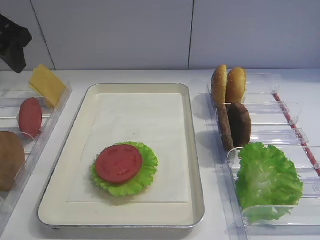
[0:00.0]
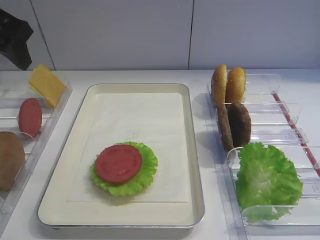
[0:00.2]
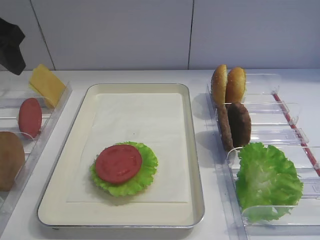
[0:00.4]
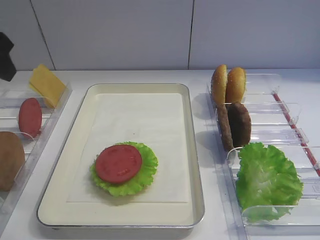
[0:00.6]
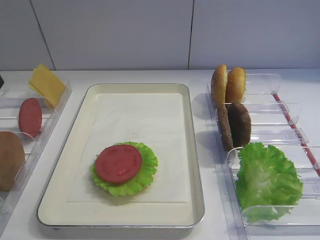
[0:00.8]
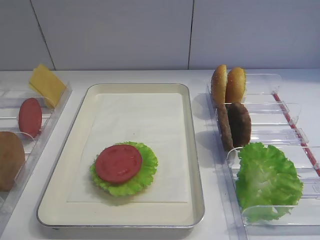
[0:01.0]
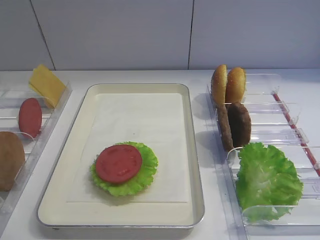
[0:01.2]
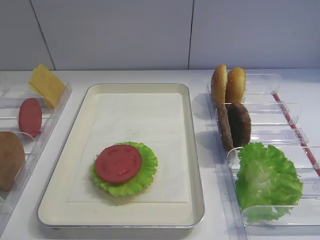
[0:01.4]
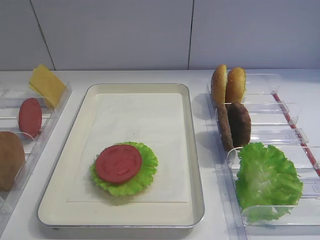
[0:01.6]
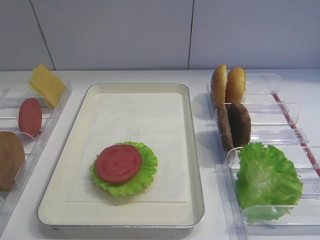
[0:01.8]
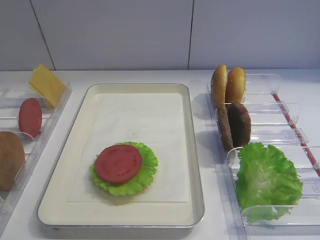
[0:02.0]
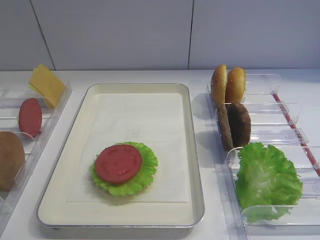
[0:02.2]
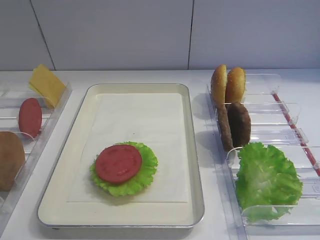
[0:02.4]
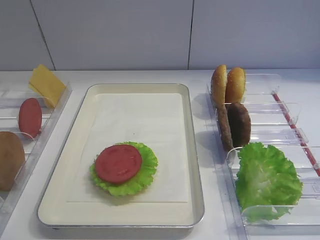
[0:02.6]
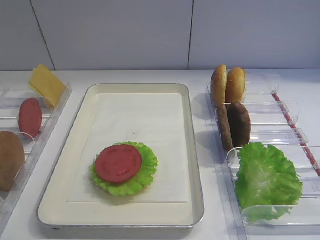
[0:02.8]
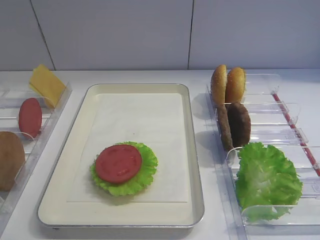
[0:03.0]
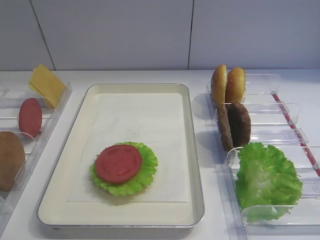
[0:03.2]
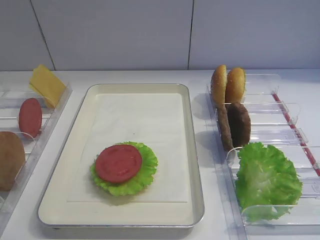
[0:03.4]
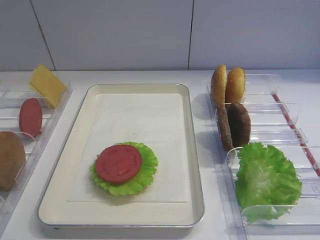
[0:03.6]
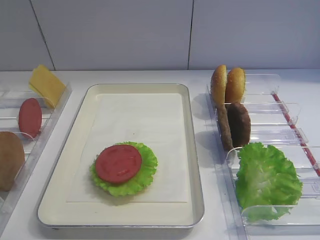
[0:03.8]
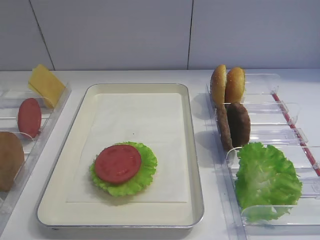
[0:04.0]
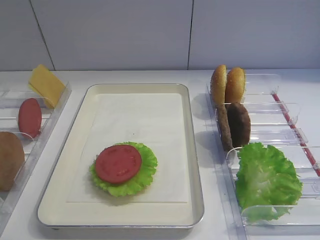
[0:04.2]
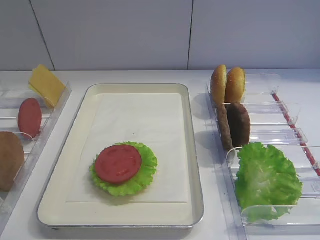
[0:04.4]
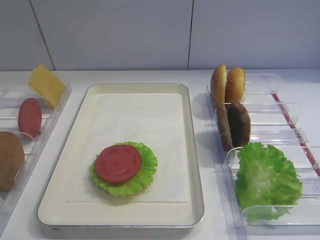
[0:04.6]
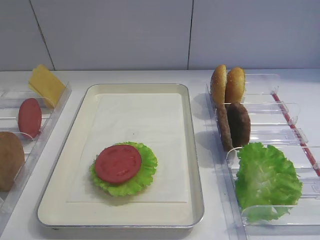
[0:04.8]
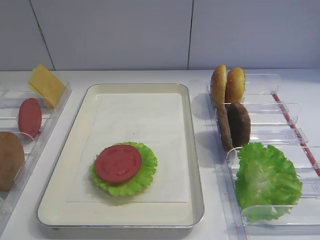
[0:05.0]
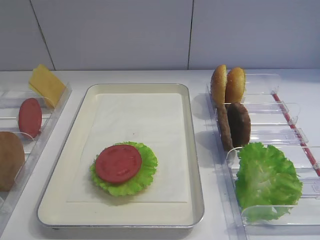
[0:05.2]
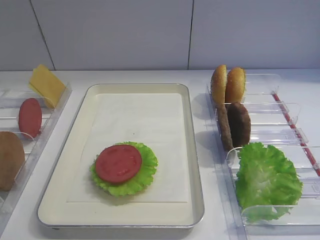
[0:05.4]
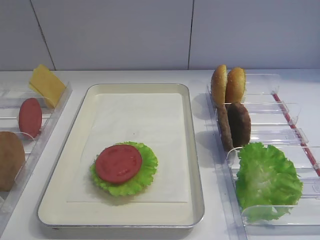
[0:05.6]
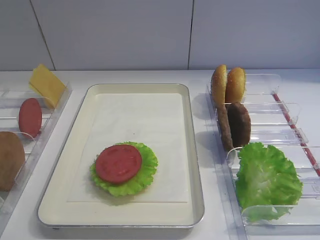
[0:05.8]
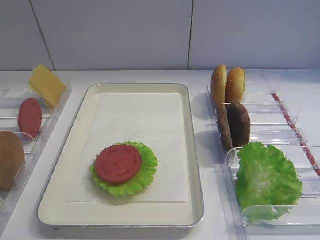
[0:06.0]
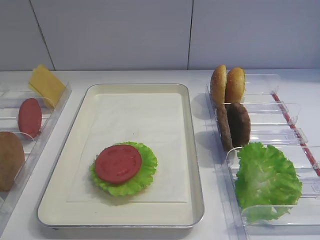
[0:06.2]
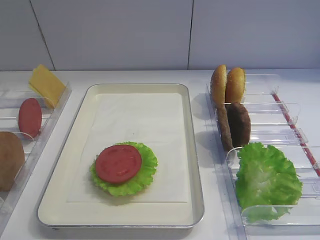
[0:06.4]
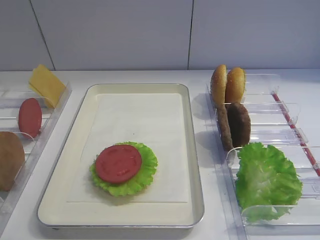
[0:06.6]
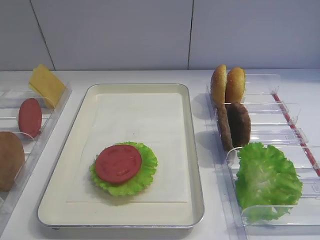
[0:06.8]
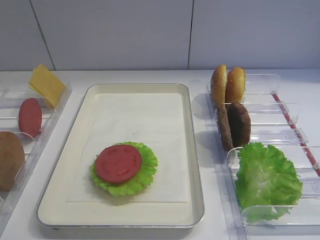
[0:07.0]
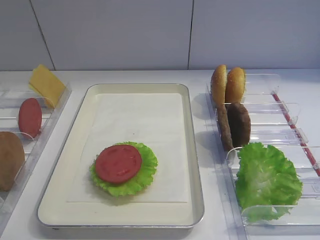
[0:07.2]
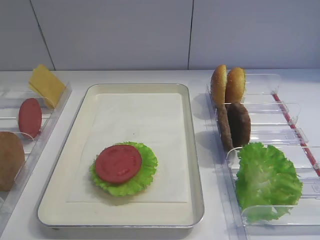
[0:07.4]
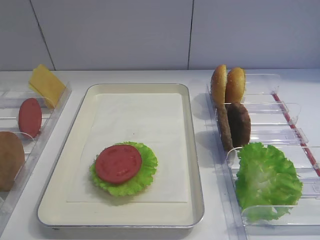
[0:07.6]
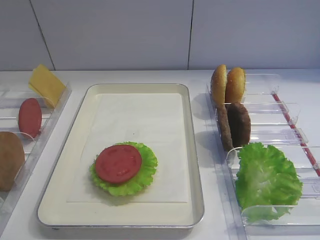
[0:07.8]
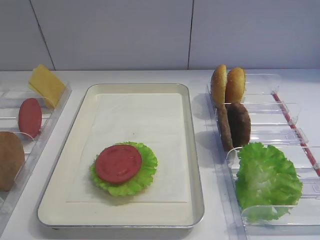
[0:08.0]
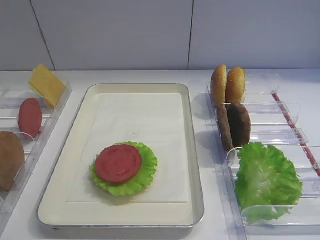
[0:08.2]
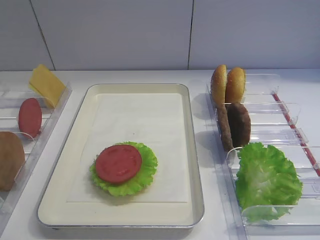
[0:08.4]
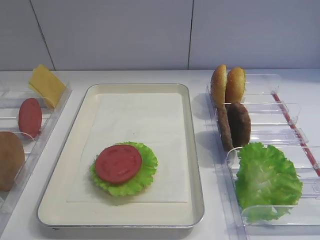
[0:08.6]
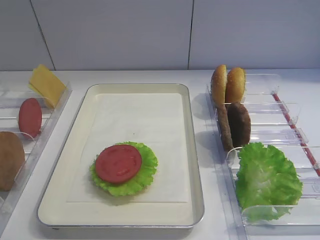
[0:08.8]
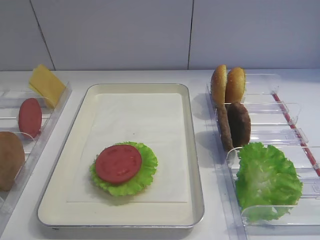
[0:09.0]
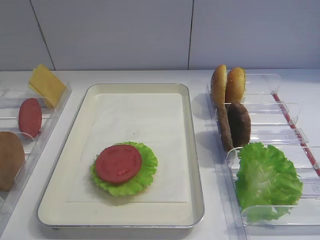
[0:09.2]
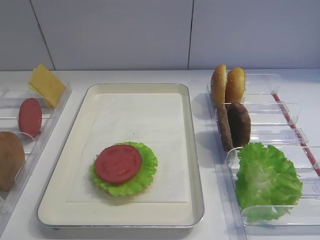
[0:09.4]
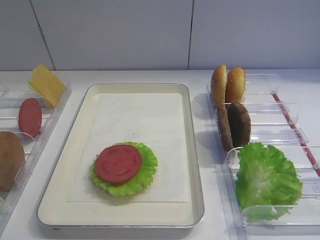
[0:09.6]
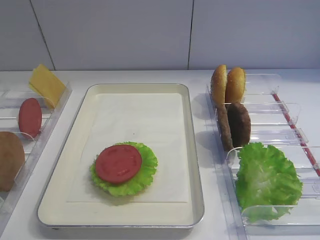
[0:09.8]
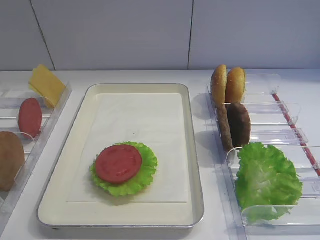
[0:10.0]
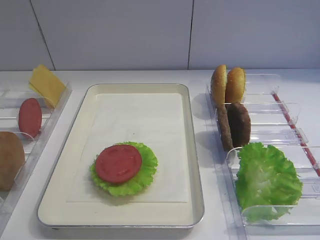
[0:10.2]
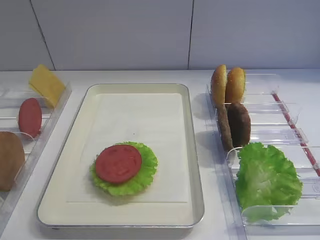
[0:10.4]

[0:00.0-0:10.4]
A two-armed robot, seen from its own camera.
0:00.0 to 0:01.4: The left gripper shifts some 20 cm backward.
0:06.0 to 0:10.4: The two grippers keep their place.

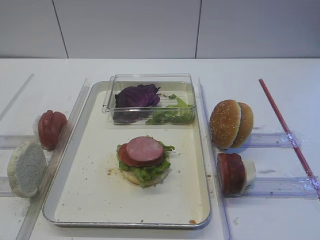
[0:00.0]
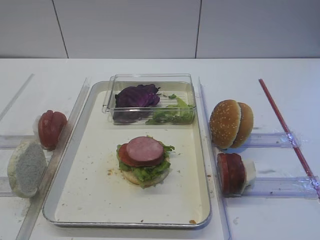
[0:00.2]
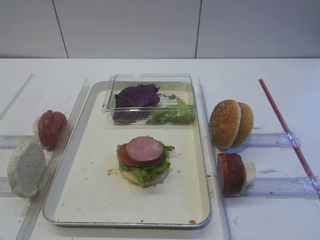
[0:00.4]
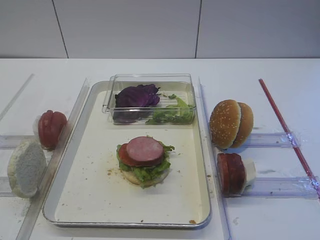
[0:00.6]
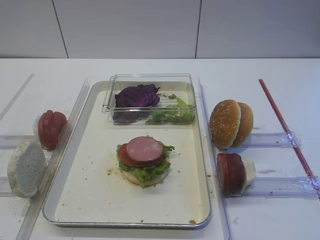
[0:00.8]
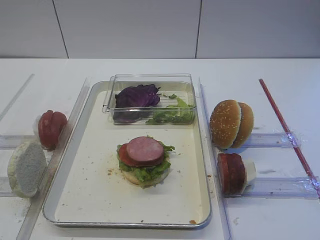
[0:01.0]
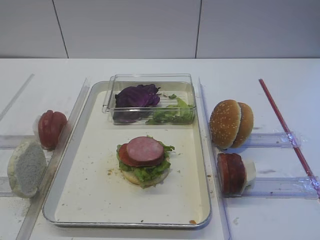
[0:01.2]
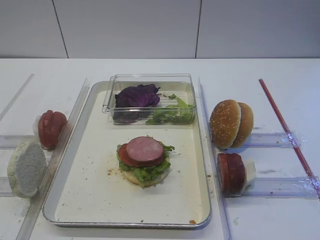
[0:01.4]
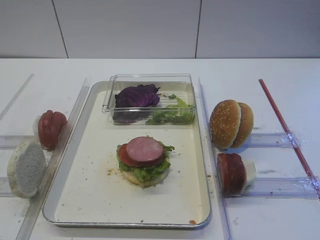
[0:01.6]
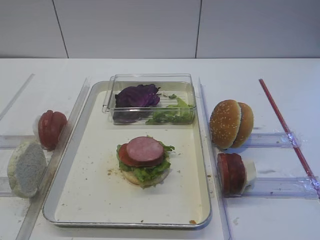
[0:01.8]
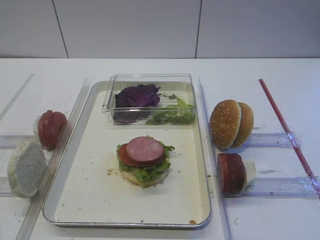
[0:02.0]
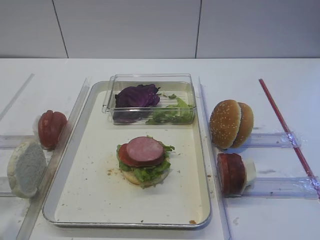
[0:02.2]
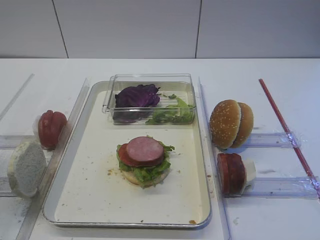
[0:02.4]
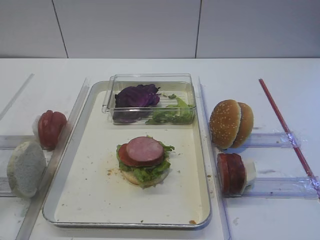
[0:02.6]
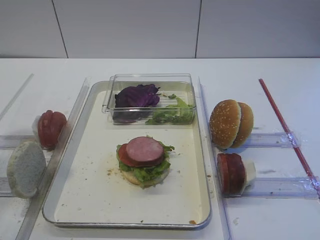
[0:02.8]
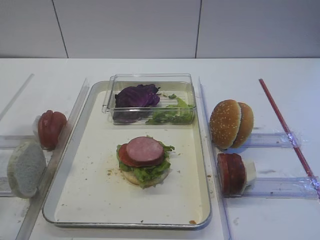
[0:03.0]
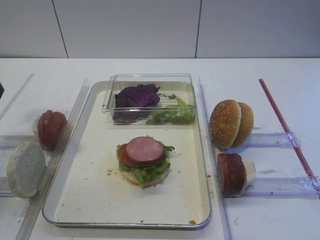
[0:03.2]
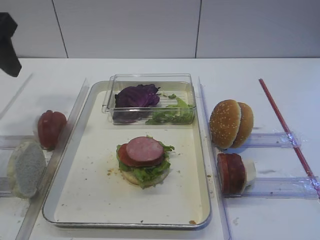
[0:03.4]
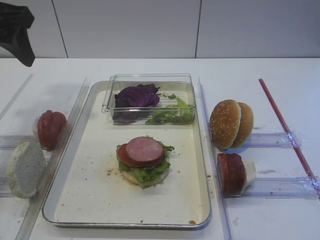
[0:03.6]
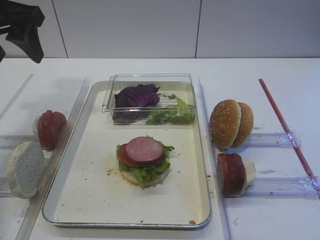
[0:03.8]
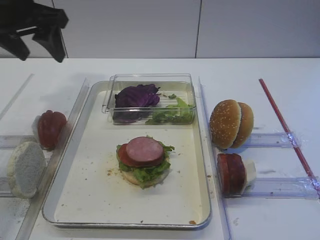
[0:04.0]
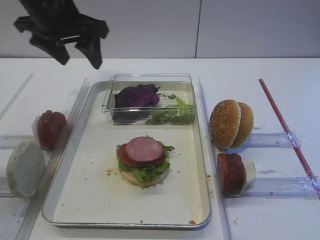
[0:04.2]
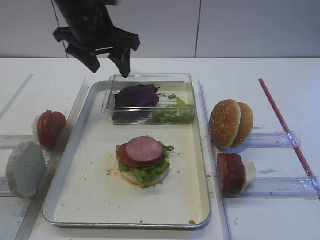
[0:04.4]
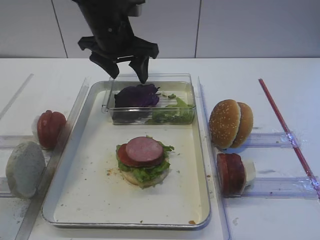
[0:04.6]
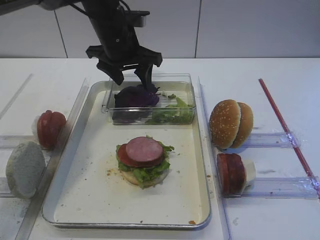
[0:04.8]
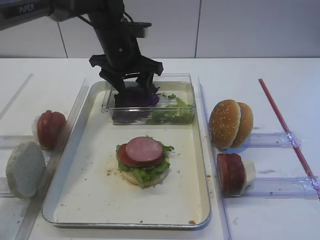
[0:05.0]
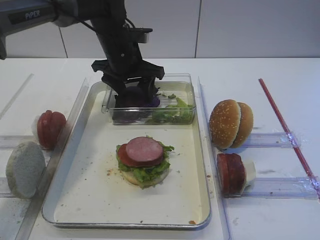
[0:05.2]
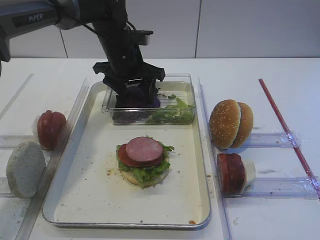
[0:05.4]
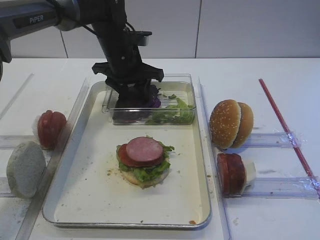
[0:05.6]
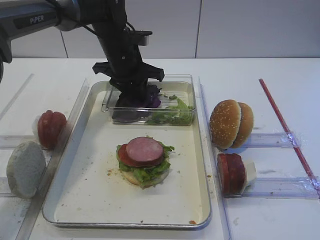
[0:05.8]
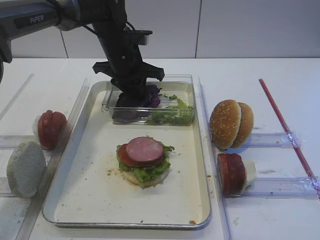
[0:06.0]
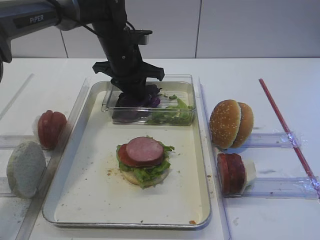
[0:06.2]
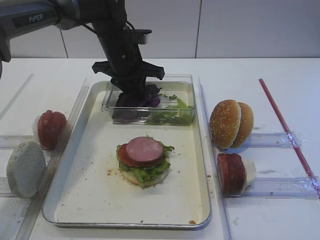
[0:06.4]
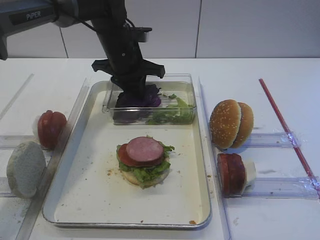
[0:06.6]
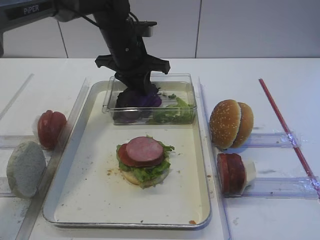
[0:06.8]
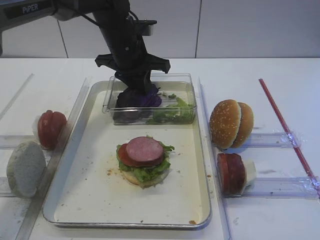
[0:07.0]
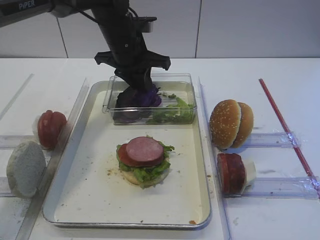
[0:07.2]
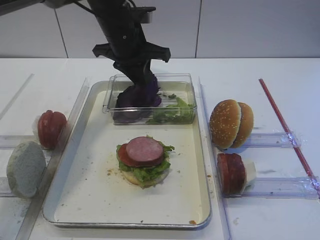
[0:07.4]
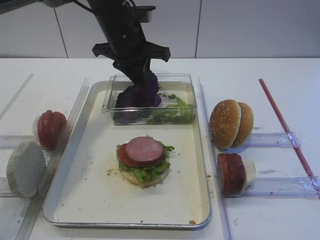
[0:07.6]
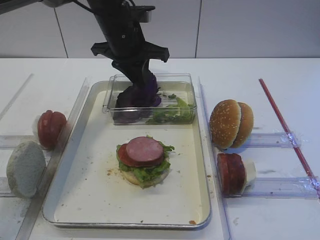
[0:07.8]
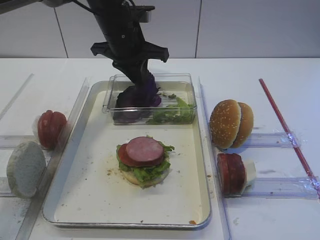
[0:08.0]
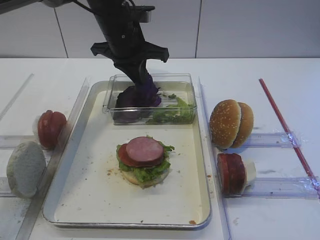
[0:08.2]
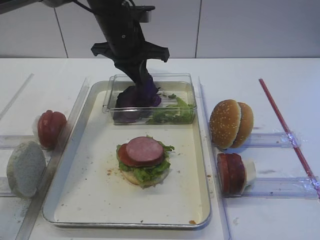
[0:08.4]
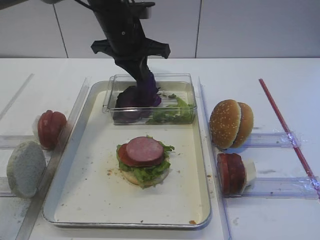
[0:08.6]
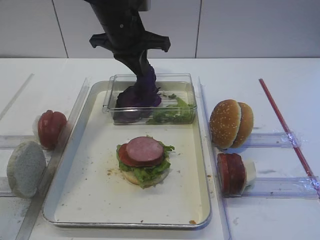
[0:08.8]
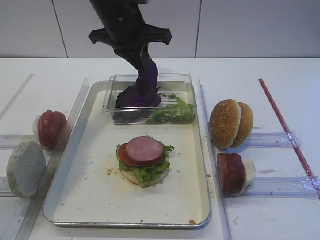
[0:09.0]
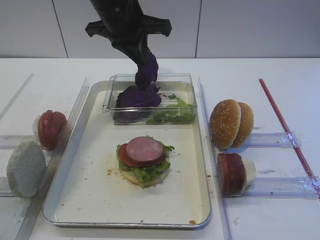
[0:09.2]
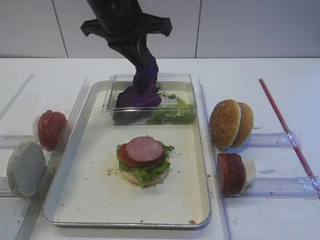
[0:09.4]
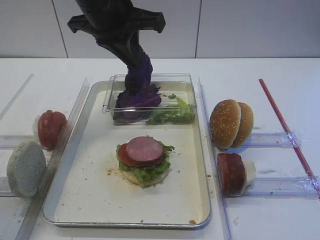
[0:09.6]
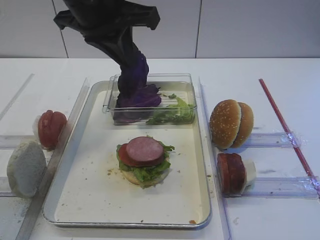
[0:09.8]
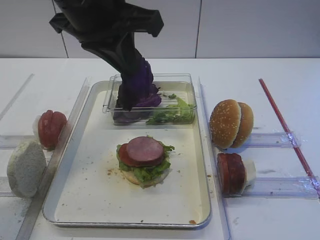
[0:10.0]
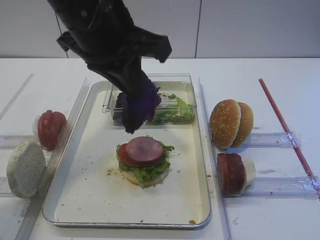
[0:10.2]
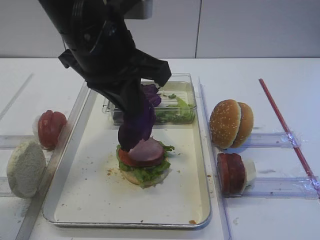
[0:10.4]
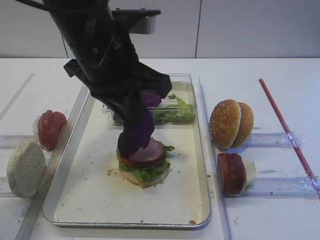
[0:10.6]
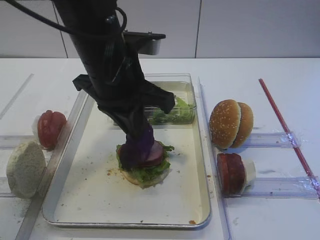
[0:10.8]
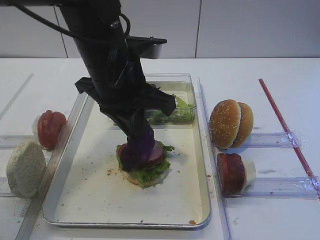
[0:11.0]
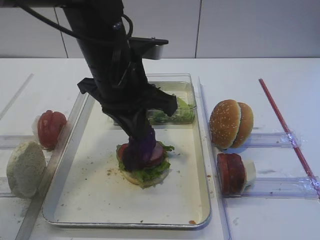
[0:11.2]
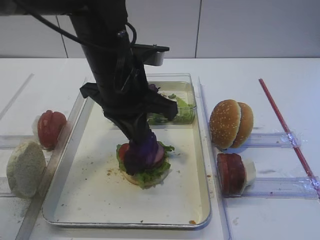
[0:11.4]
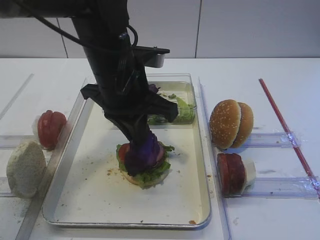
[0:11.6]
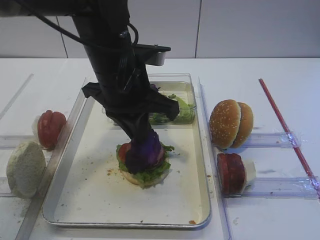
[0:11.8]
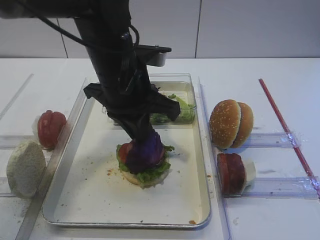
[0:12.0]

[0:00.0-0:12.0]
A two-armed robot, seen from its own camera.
Step, 0:00.0 to 0:09.4: Pick up the purple cabbage with the left gripper.
0:01.6 to 0:03.0: The left gripper goes roughly 20 cm forward and upward.
0:03.0 to 0:04.4: The left gripper goes about 25 cm forward and to the right.
0:04.4 to 0:06.0: The left gripper heads downward, forward and to the right, covering about 10 cm, and closes its fingers.
0:06.0 to 0:07.6: The left gripper moves upward, about 5 cm.
0:07.6 to 0:09.0: The grippers move only a little.
0:09.0 to 0:10.4: The left gripper shifts some 15 cm backward.
0:10.4 to 0:12.0: The left gripper goes some 5 cm downward.
